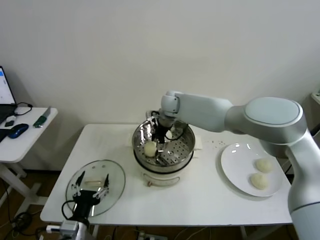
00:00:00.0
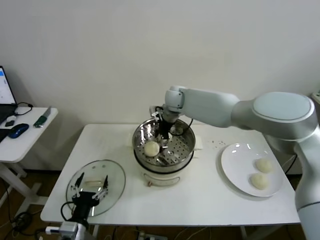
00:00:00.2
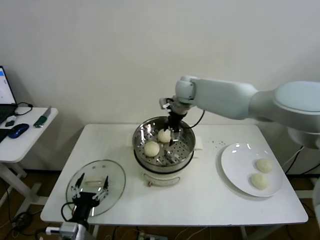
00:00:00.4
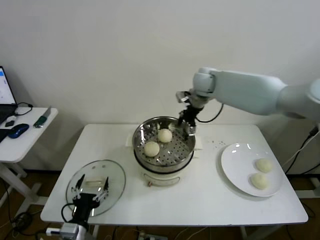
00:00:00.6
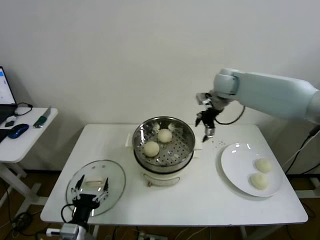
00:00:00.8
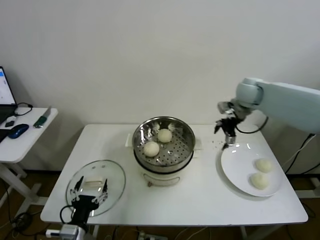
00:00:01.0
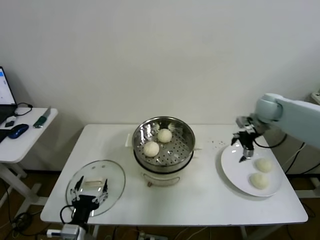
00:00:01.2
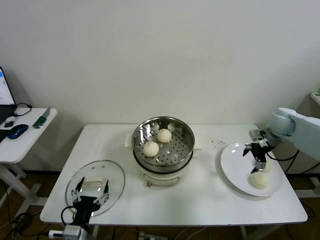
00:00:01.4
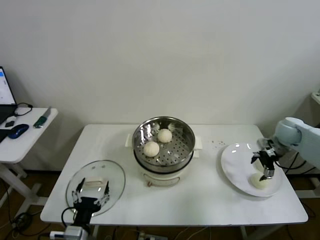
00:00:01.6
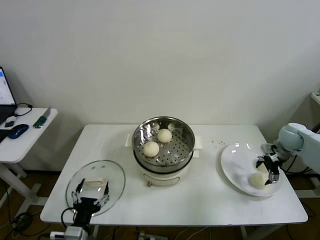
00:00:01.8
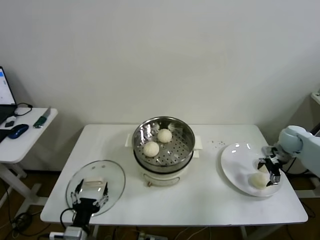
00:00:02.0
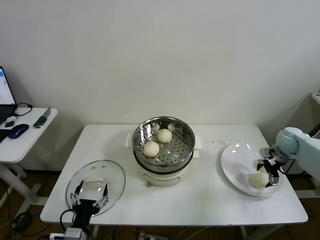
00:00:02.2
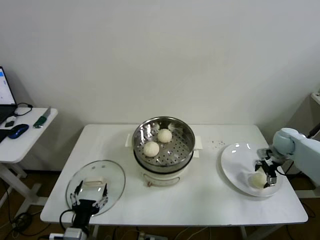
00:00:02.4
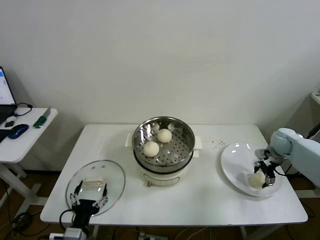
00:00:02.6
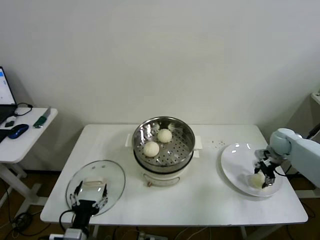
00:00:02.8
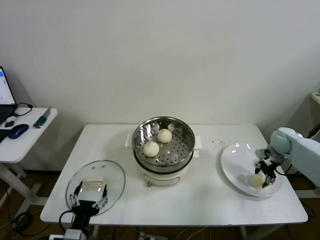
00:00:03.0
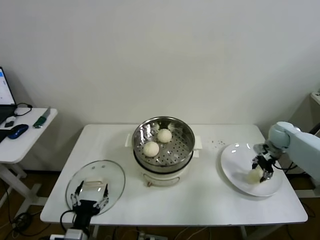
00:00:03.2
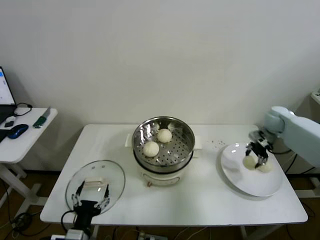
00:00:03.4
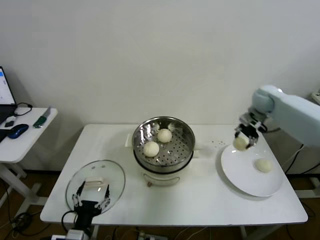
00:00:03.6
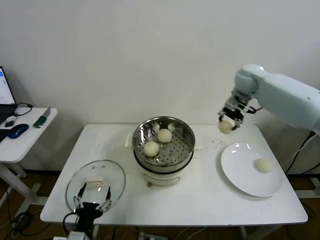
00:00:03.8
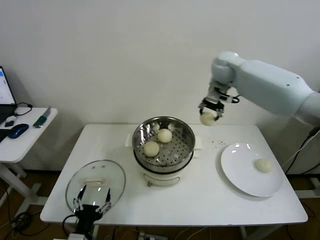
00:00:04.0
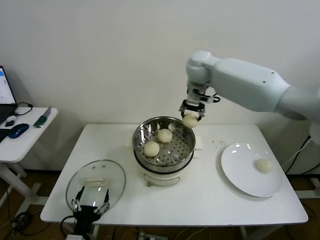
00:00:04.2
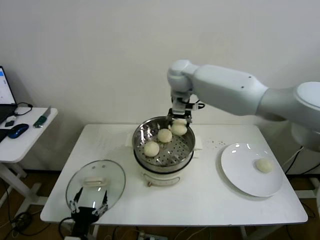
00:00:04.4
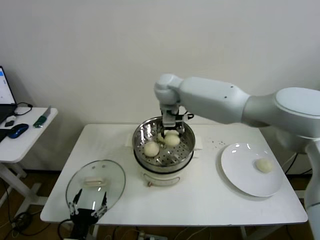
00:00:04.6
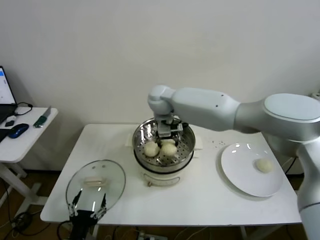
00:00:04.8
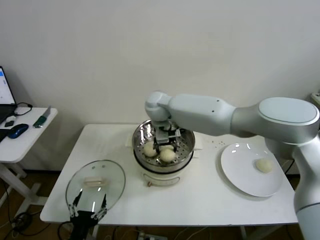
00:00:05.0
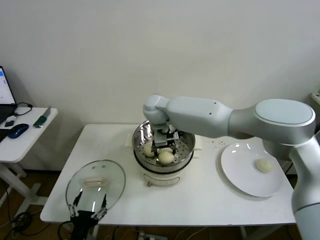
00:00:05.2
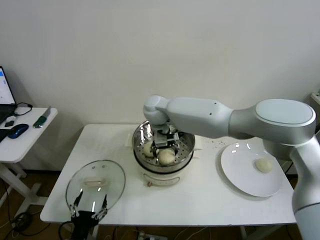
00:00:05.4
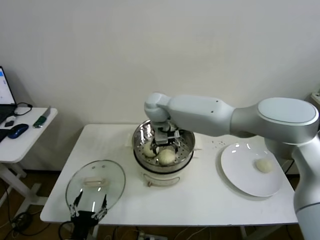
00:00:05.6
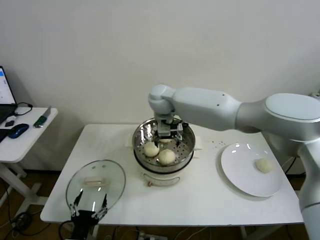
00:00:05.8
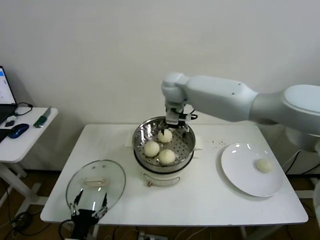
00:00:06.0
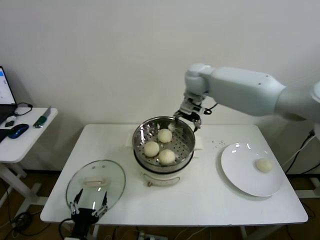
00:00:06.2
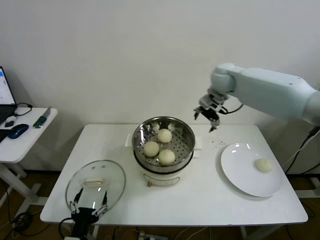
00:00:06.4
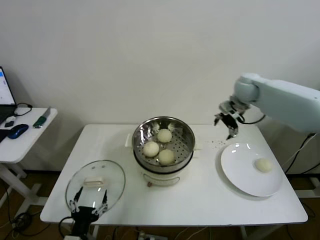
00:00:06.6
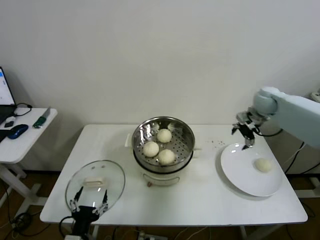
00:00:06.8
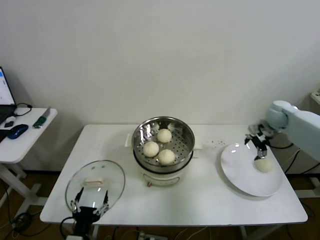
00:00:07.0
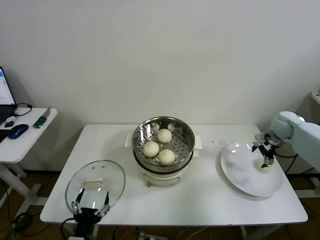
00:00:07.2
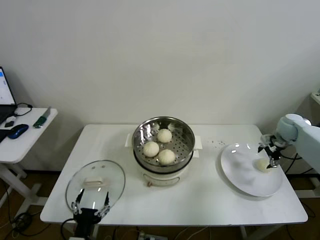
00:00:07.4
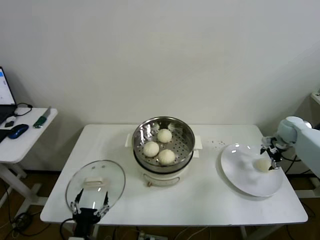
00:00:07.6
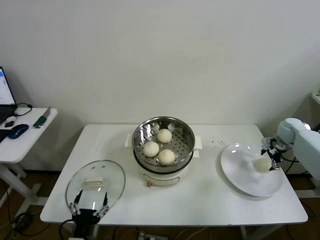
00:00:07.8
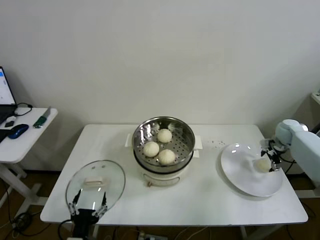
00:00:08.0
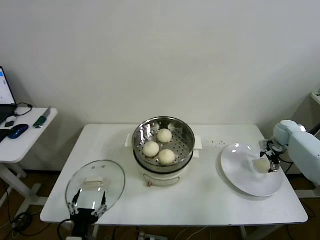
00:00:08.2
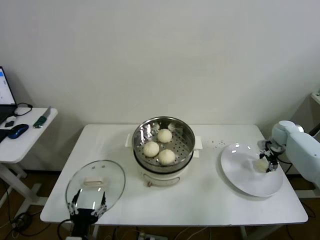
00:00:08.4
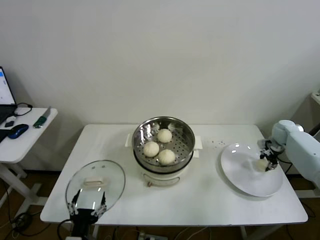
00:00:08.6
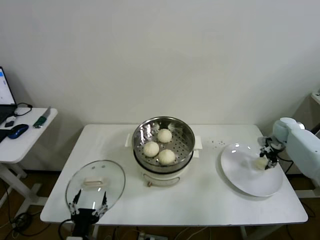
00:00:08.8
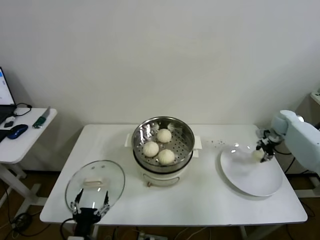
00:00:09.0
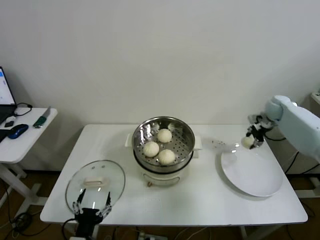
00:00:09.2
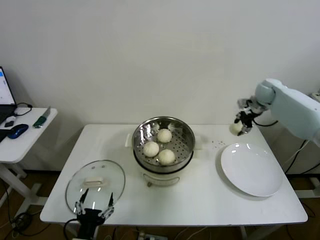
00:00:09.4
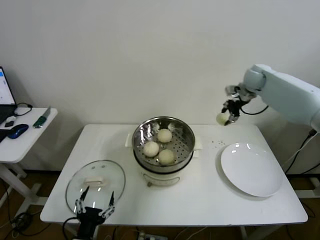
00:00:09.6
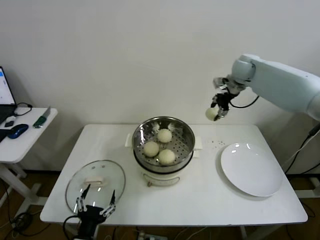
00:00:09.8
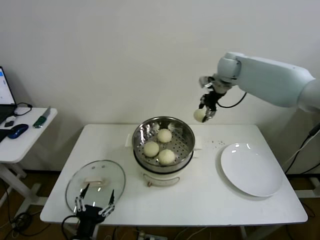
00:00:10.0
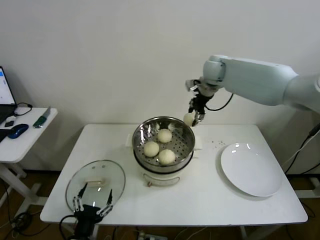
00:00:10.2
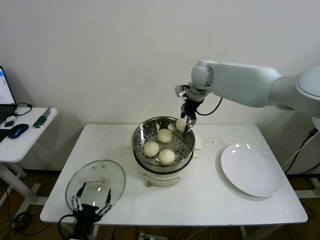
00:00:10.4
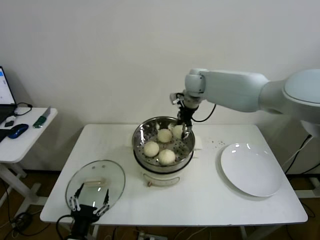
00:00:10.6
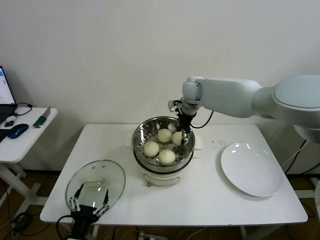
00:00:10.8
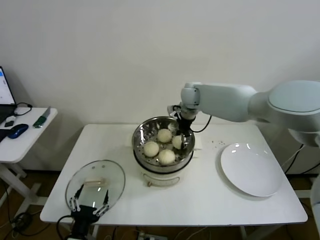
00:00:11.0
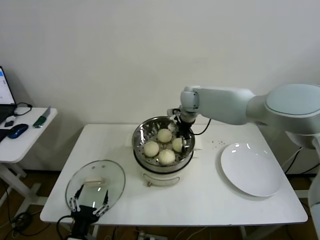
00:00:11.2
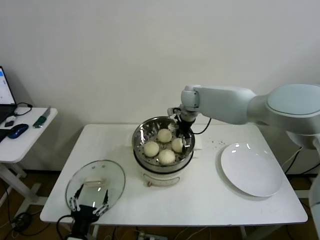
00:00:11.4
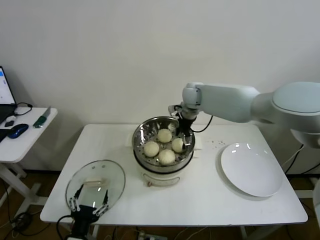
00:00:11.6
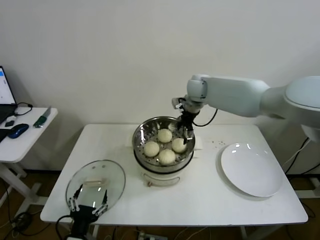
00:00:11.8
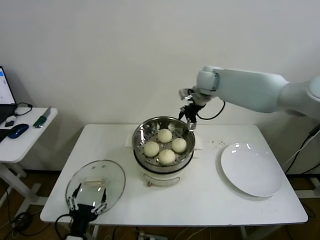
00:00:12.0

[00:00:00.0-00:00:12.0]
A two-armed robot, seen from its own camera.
Step, 00:00:00.0 to 00:00:02.6: Grasp the baozi in the plate with right gripper.
Step, 00:00:02.8 to 00:00:05.2: Place the baozi on the steamer with right gripper.
Step, 00:00:05.4 to 00:00:08.4: Grasp the baozi in the plate with right gripper.
Step, 00:00:08.6 to 00:00:11.2: Place the baozi on the steamer with right gripper.
00:00:00.0 to 00:00:01.6: The right gripper shifts roughly 40 cm to the right.
00:00:01.6 to 00:00:03.0: The right gripper goes roughly 5 cm downward, and closes its fingers.
00:00:03.0 to 00:00:04.4: The right gripper moves to the left and upward, about 50 cm.
00:00:04.4 to 00:00:06.0: The right gripper opens up.
00:00:06.0 to 00:00:07.6: The right gripper shifts about 50 cm to the right.
00:00:07.6 to 00:00:09.0: The right gripper closes.
00:00:09.0 to 00:00:10.4: The right gripper travels to the left and upward by approximately 40 cm.
00:00:10.4 to 00:00:12.0: The right gripper goes downward and returns, some 10 cm each way, and opens up.

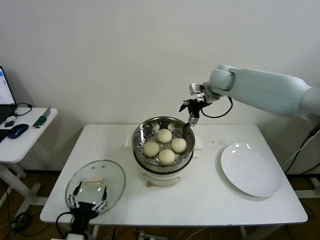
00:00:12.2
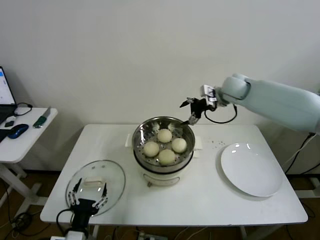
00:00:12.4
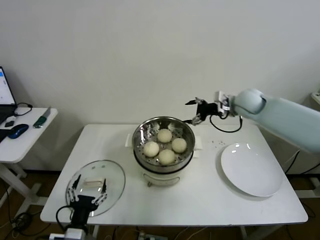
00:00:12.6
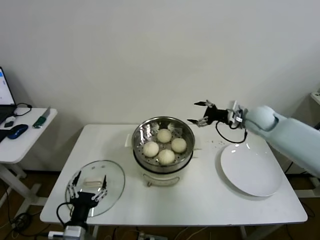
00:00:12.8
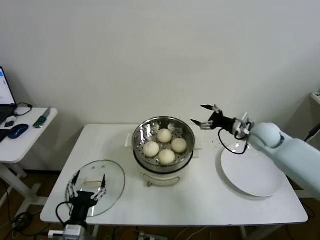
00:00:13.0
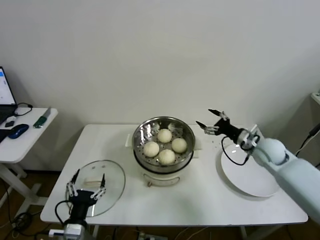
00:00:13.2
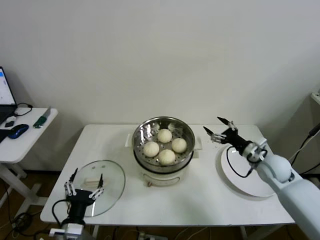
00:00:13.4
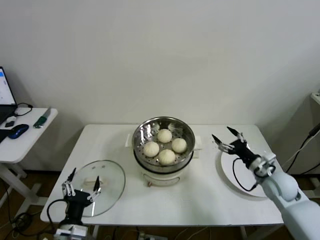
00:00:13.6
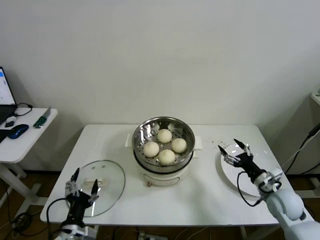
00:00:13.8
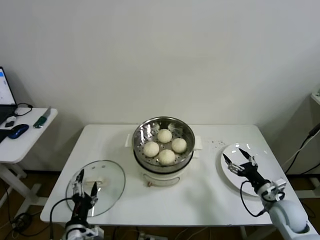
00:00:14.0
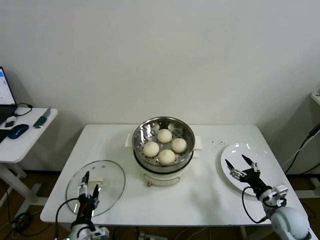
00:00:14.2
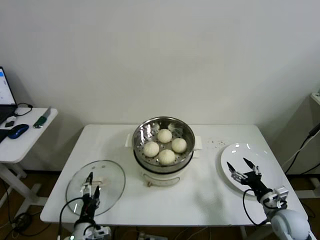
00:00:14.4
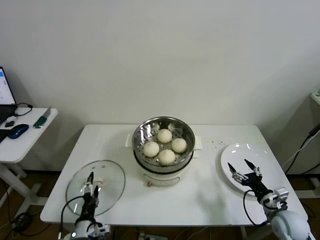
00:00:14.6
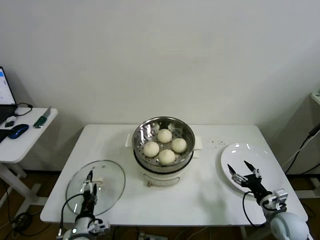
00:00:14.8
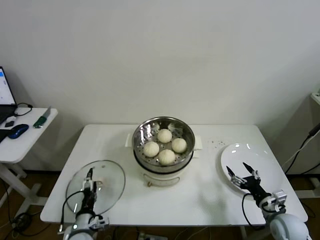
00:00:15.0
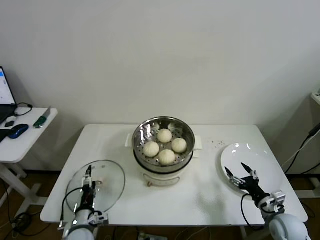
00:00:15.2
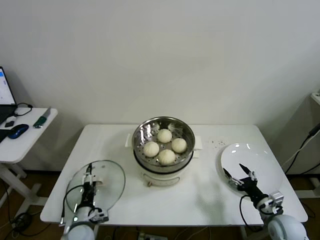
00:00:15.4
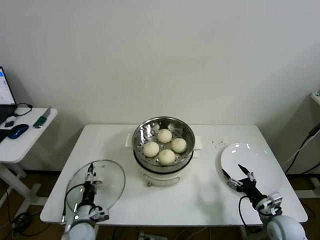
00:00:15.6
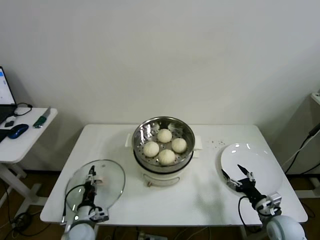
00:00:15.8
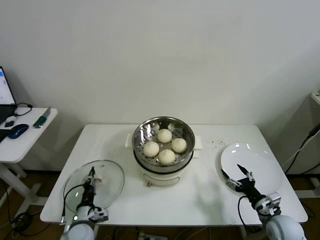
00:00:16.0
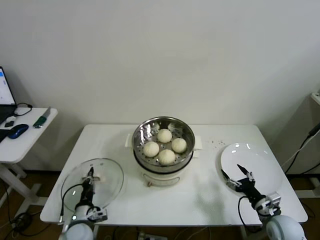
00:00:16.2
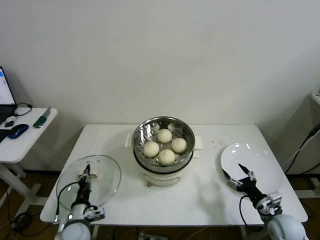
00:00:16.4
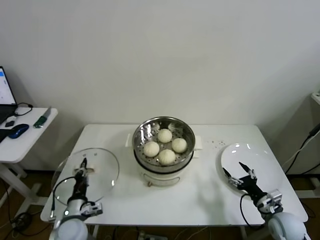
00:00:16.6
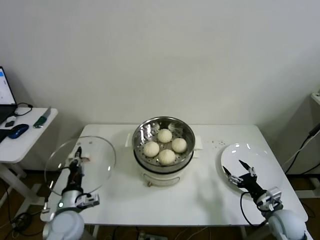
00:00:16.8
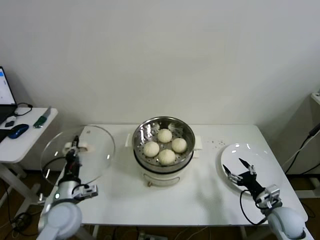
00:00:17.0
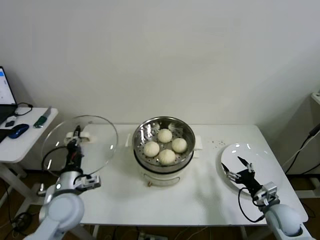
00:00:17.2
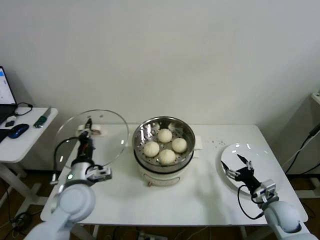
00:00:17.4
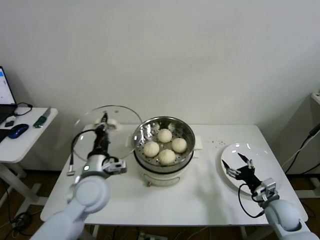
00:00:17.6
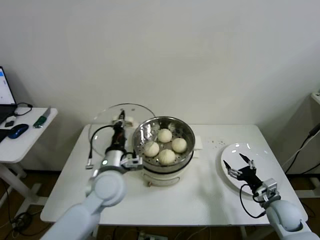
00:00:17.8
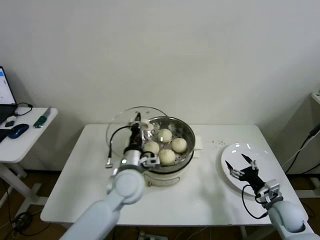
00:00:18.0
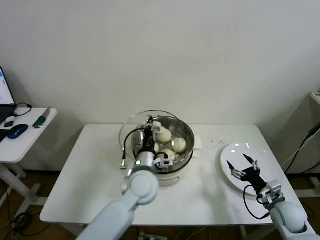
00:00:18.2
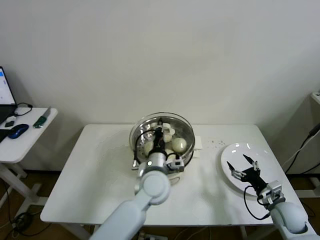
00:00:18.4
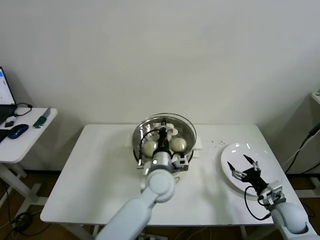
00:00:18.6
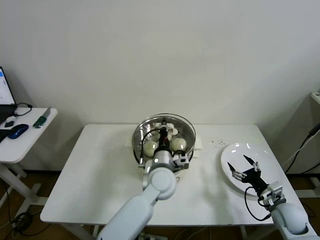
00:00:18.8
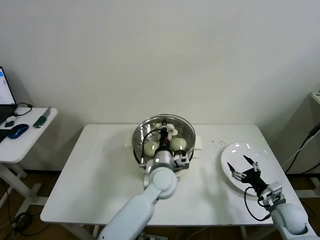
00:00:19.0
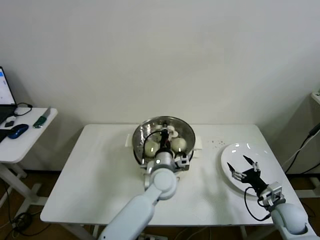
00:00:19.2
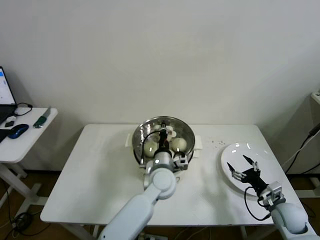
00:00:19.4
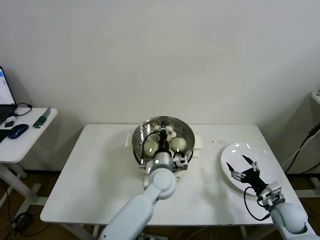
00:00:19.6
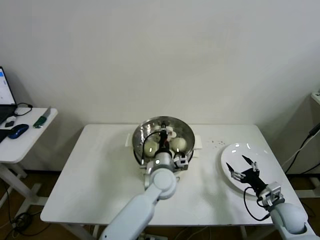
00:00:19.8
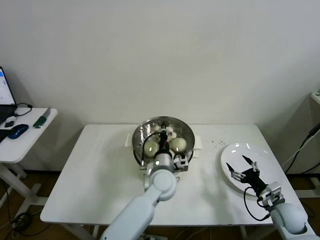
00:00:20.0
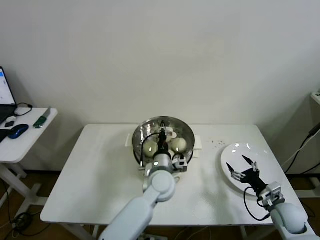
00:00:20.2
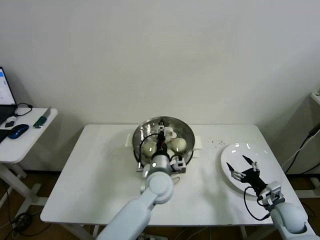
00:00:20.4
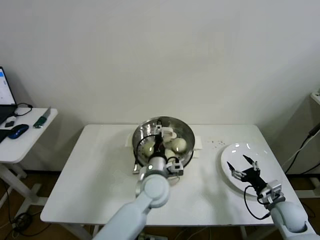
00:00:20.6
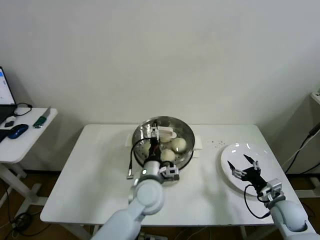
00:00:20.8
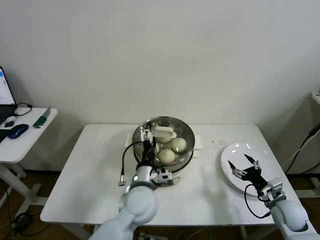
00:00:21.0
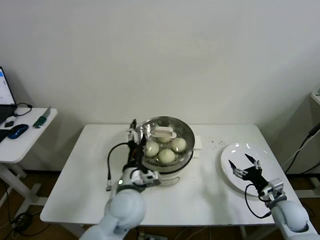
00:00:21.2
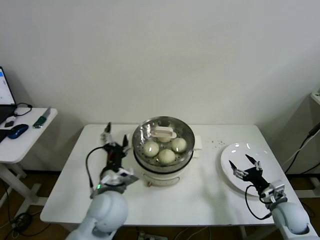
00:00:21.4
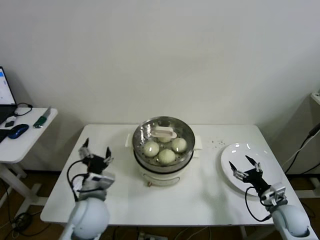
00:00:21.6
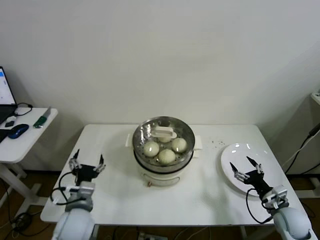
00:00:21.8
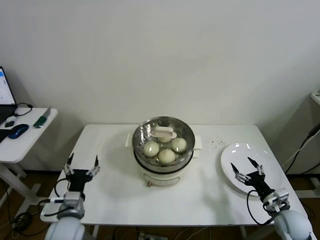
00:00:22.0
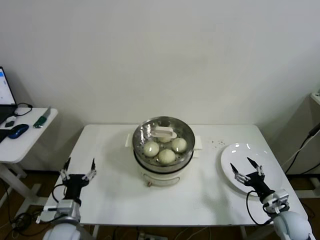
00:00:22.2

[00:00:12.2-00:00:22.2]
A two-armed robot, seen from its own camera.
Step, 00:00:12.2 to 00:00:16.0: Grasp the pot lid with left gripper.
Step, 00:00:16.2 to 00:00:20.2: Place the pot lid on the steamer with left gripper.
00:00:12.2 to 00:00:13.6: The right gripper is displaced downward, backward and to the right by approximately 40 cm.
00:00:13.6 to 00:00:15.0: The right gripper moves backward and downward, some 15 cm. The left gripper shifts about 10 cm downward and forward.
00:00:15.0 to 00:00:16.4: The left gripper closes its fingers.
00:00:16.4 to 00:00:18.0: The left gripper is displaced upward, to the right and forward by some 30 cm.
00:00:18.0 to 00:00:19.4: The left gripper is displaced to the right and downward by roughly 15 cm.
00:00:19.4 to 00:00:20.8: The left gripper ends up roughly 5 cm from where it was, and opens up.
00:00:20.8 to 00:00:22.2: The left gripper travels to the left and backward by approximately 30 cm.
